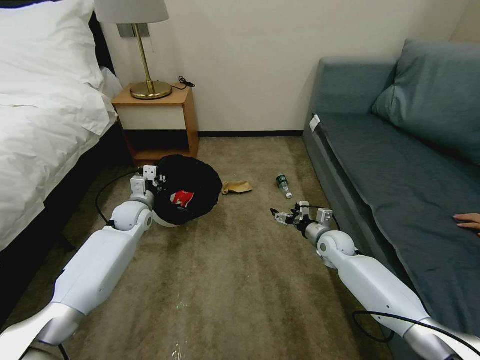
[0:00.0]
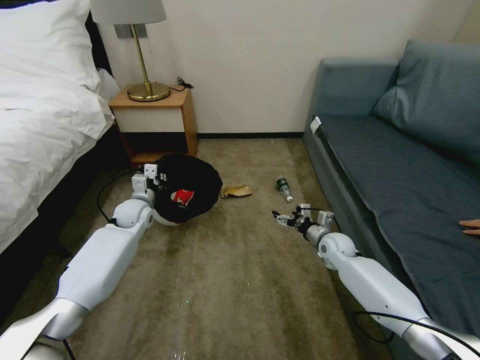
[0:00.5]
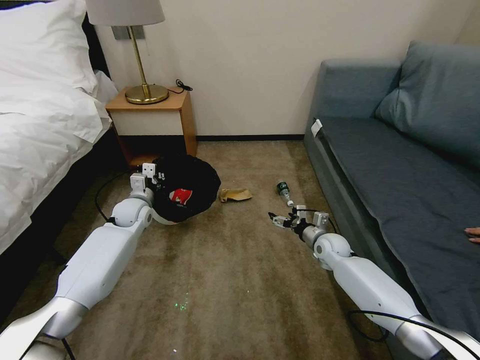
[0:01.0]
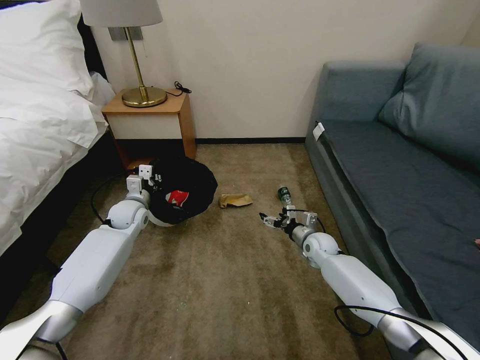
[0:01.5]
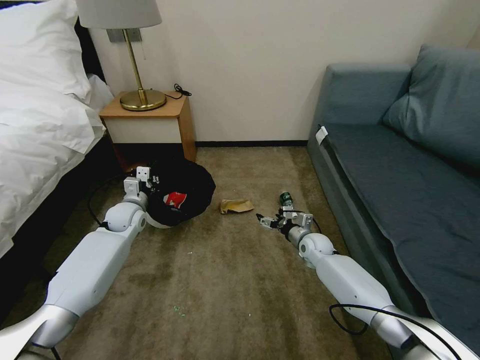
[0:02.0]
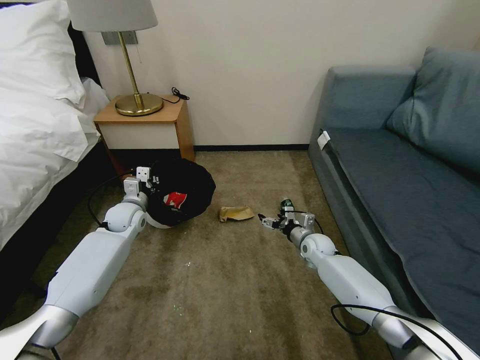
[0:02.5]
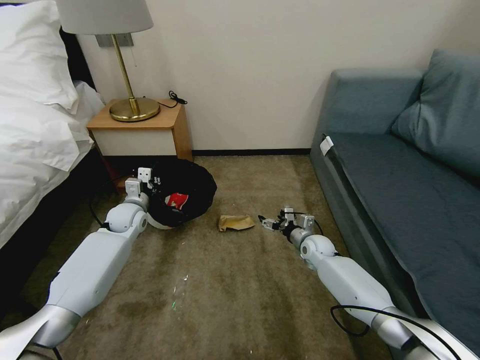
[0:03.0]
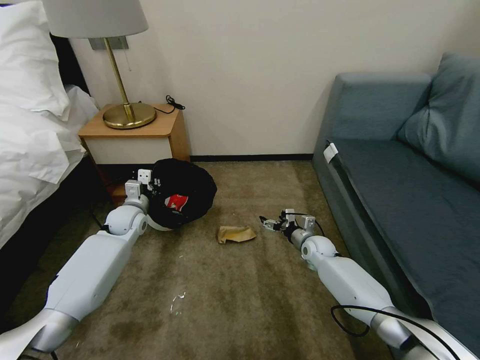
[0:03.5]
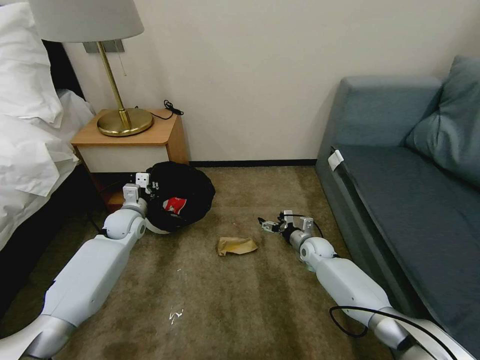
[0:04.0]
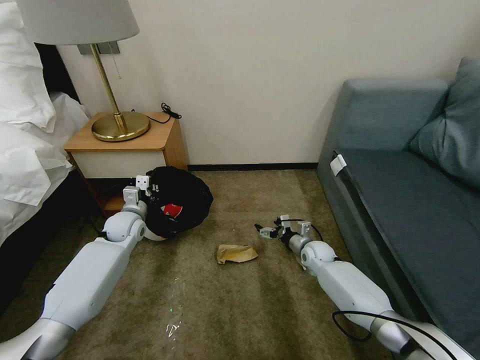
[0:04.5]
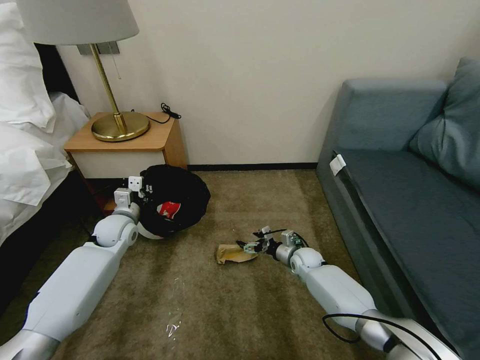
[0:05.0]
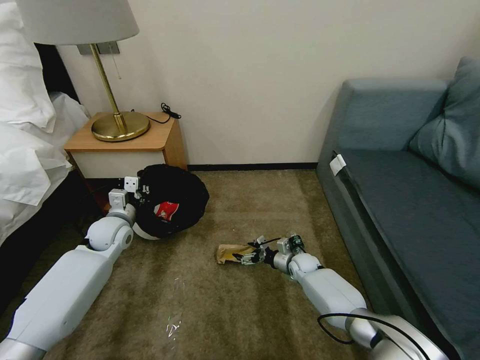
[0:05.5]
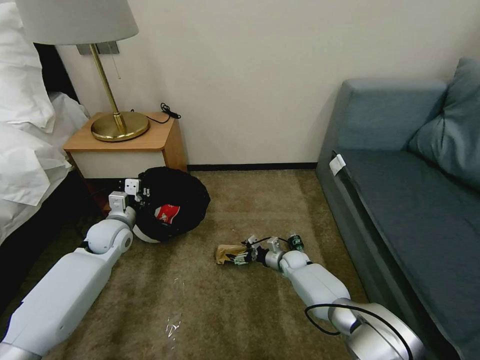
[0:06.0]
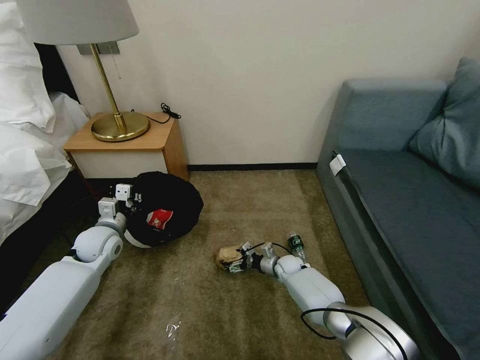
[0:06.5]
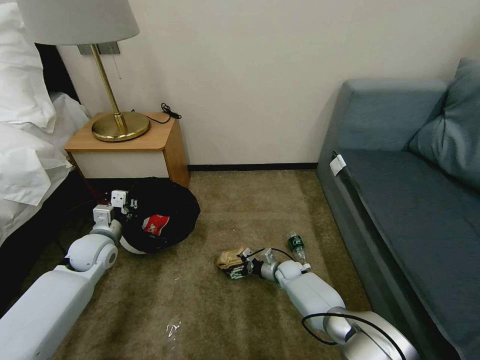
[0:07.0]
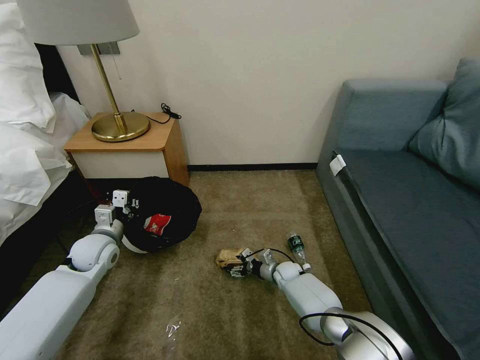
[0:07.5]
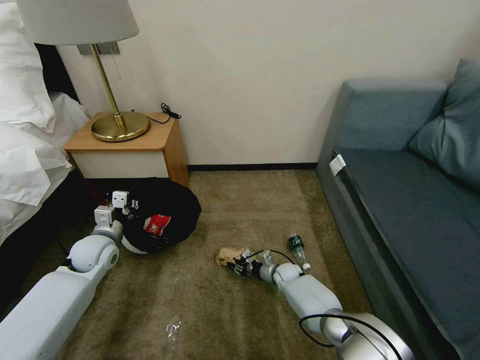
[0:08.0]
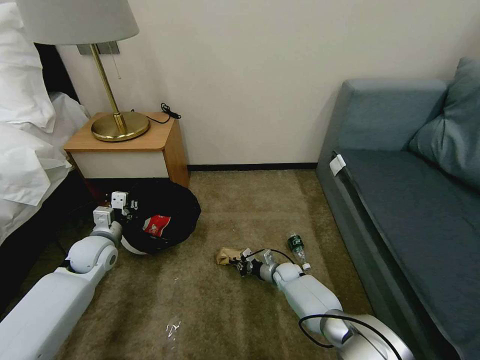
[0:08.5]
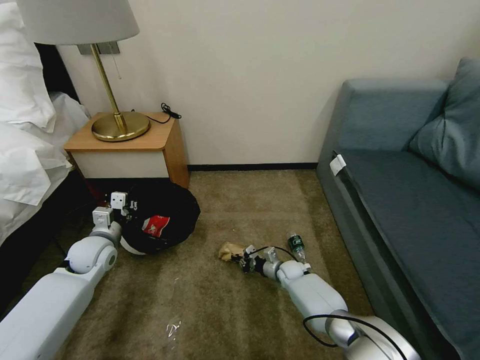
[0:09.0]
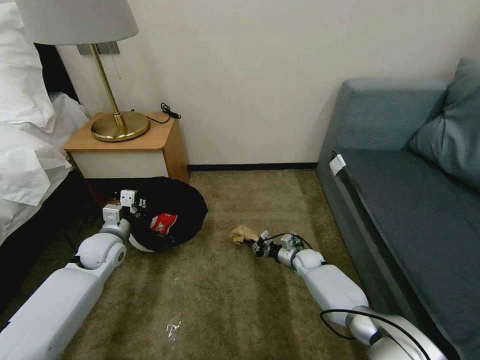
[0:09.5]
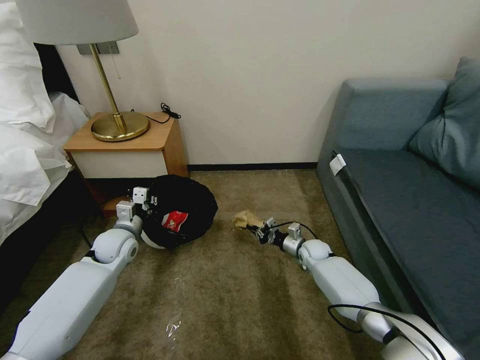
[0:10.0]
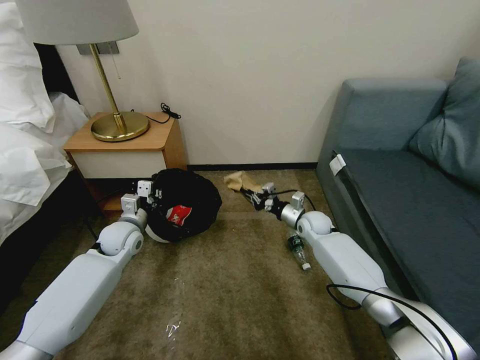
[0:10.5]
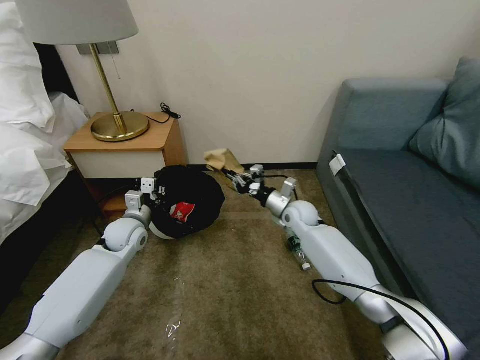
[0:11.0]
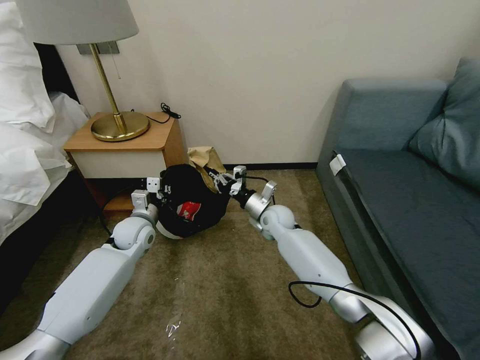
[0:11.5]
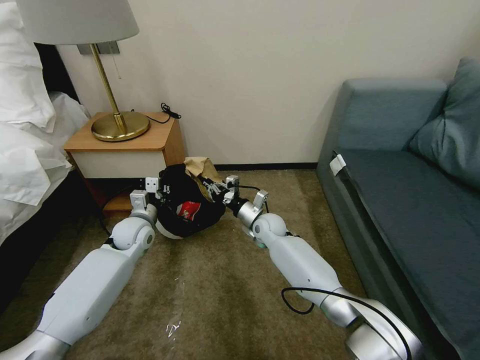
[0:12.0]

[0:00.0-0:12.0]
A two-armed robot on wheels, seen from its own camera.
Task of the whole recording: Pick up the trash bin, then pick up the garbage on the floor and place it into the trash bin.
0:00.0 to 0:02.0: The right gripper changes place by some 5 cm.
0:04.0 to 0:06.0: The right gripper travels downward and to the left by roughly 10 cm; the left gripper heads backward, covering some 5 cm.
0:06.0 to 0:08.0: The right gripper closes up.
0:08.0 to 0:10.0: The right gripper moves upward and to the right, about 10 cm.
0:10.0 to 0:12.0: The right gripper shifts roughly 20 cm to the left and upward.

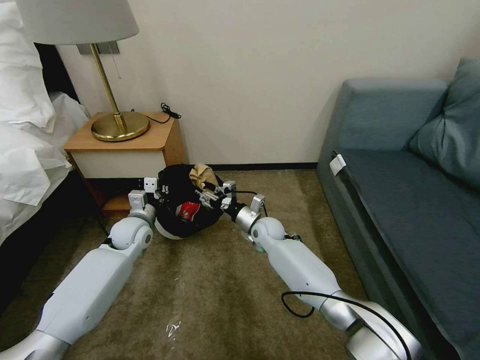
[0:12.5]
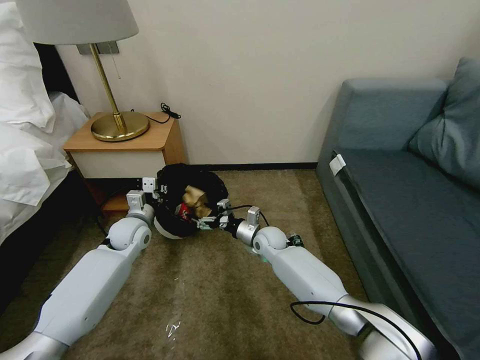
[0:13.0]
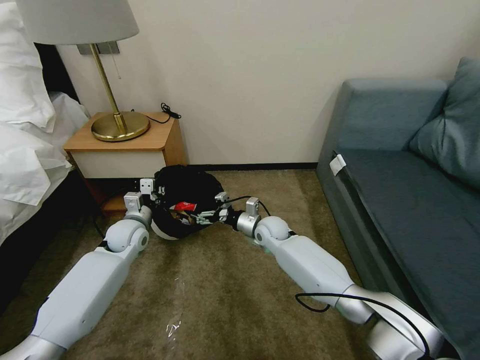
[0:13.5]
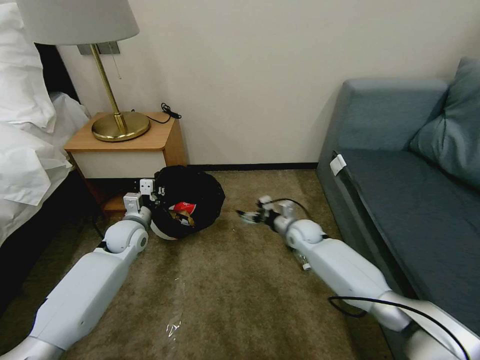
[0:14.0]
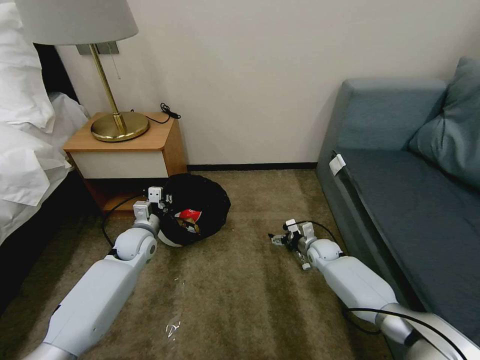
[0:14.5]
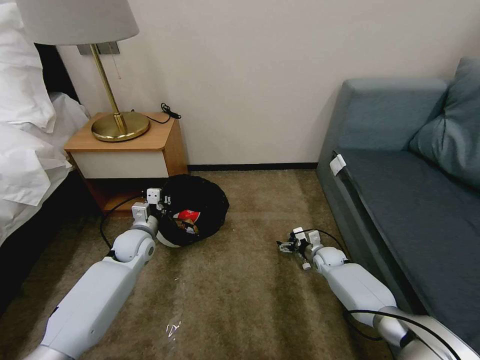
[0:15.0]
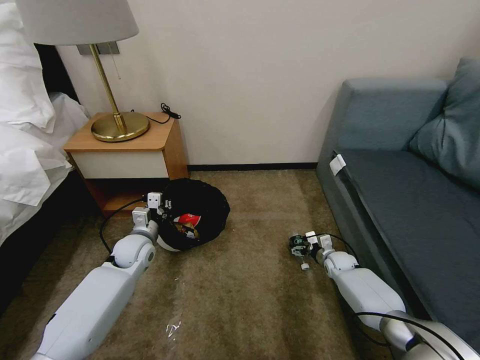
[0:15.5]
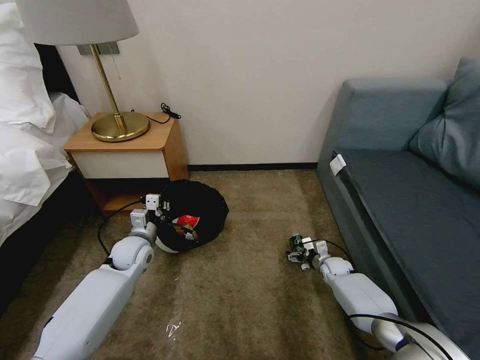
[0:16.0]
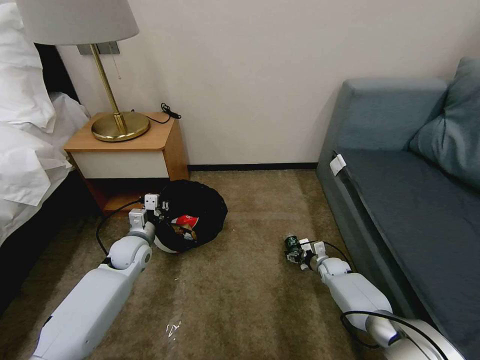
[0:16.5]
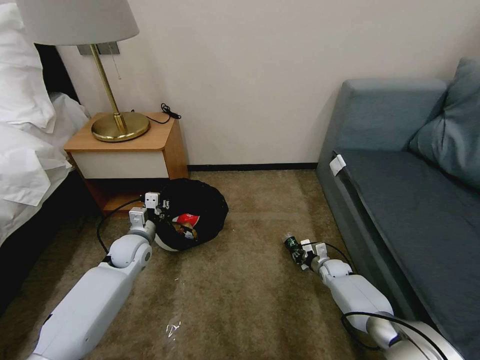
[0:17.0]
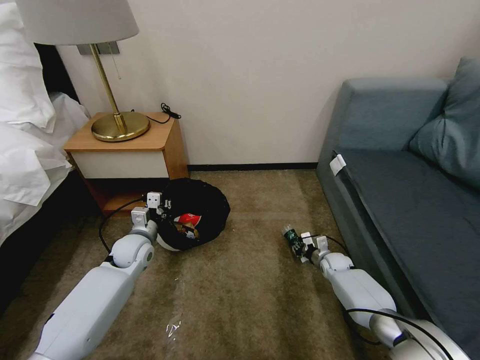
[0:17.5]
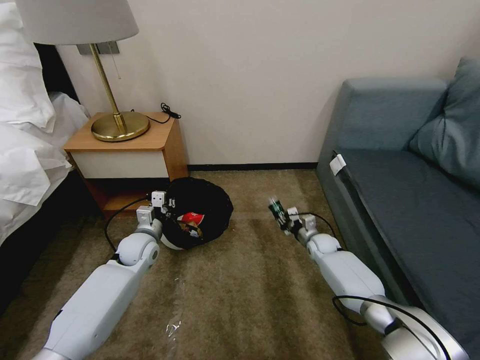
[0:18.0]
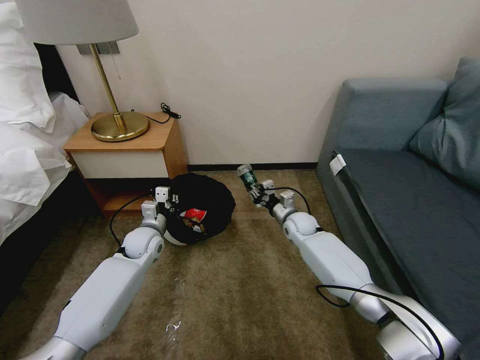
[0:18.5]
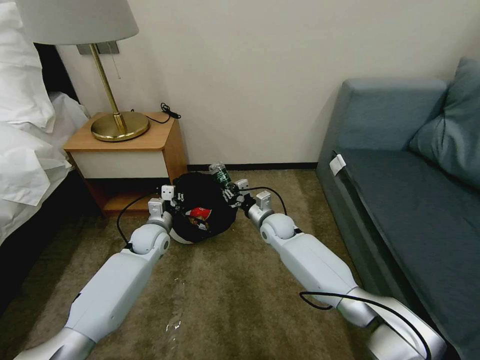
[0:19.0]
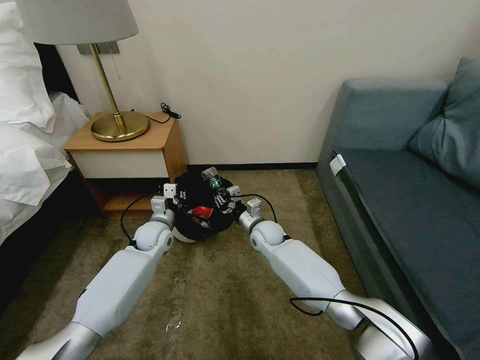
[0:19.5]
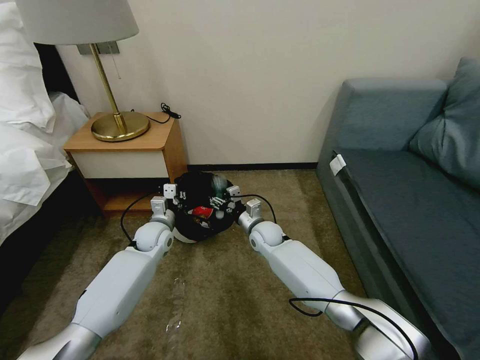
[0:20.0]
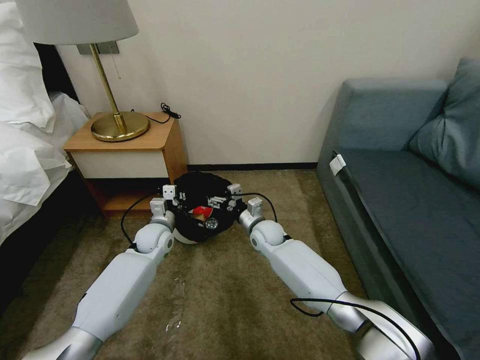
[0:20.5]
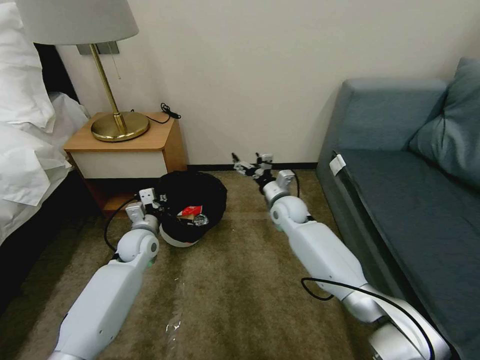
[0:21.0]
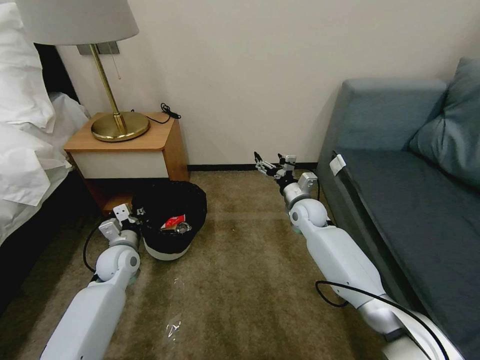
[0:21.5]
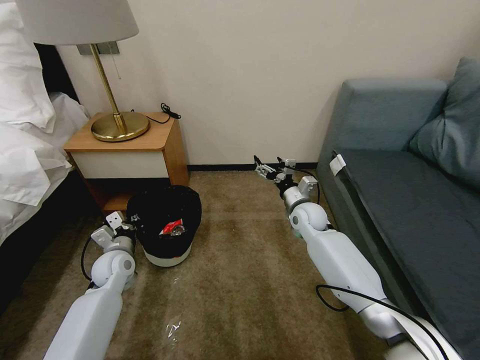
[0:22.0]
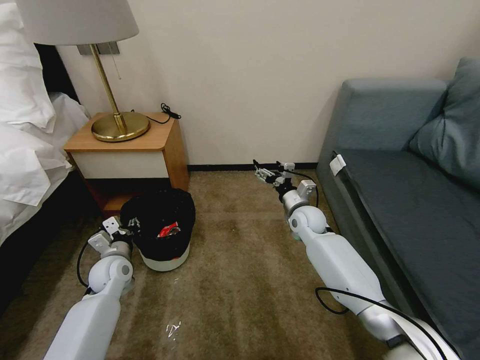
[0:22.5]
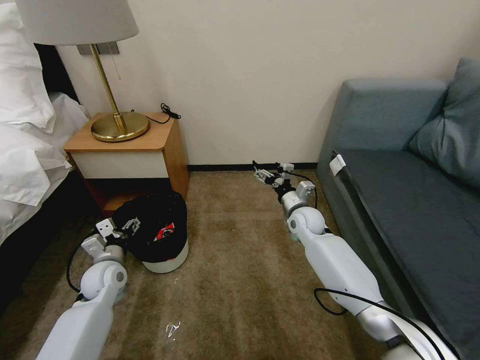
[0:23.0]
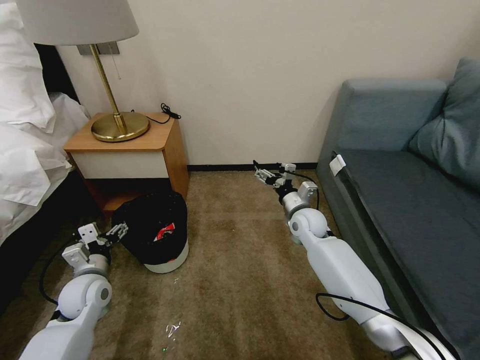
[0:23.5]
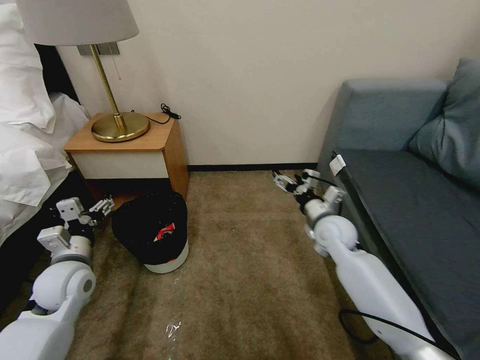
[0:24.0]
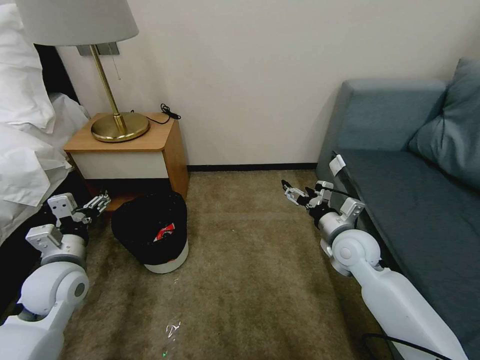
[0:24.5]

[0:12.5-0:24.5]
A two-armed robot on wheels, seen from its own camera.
Task of the whole recording: Pick up the trash bin, then pick up the garbage on the floor and place it into the trash bin.
0:12.5 to 0:14.5: The right gripper is displaced to the right and downward by some 20 cm, and opens its fingers.
0:14.5 to 0:16.5: The right gripper travels downward by some 5 cm.
0:16.5 to 0:18.5: The right gripper moves upward, to the left and forward, some 20 cm, and closes.
0:18.5 to 0:20.5: The right gripper shifts roughly 10 cm to the left, and opens up.
0:20.5 to 0:22.5: The left gripper goes approximately 15 cm to the left and backward. Meanwhile the right gripper travels to the right and upward by approximately 10 cm.
0:22.5 to 0:24.5: The right gripper is displaced backward, to the right and upward by some 15 cm. Meanwhile the left gripper goes approximately 15 cm upward and backward, and opens its fingers.

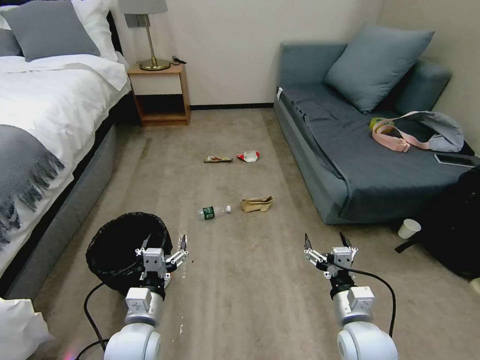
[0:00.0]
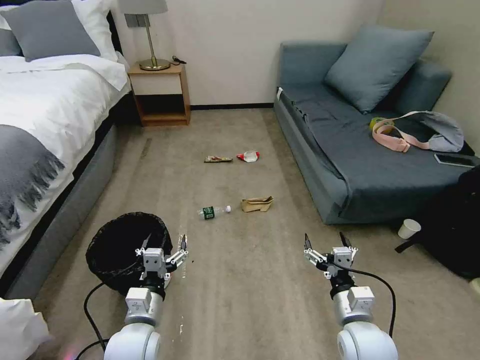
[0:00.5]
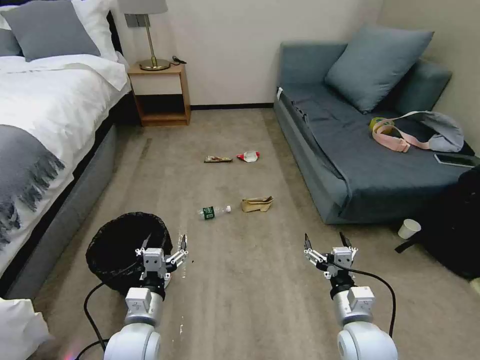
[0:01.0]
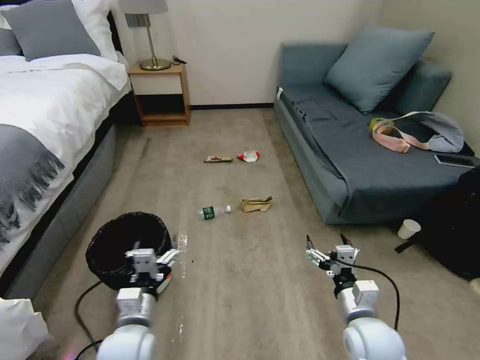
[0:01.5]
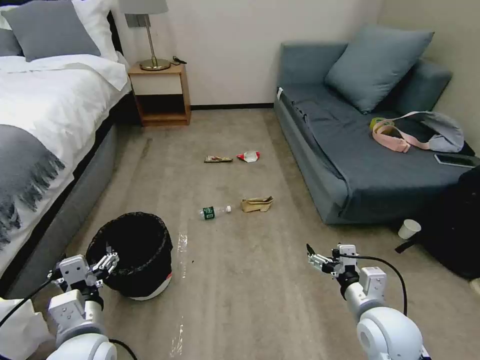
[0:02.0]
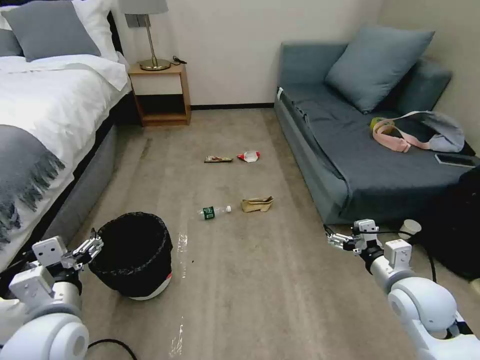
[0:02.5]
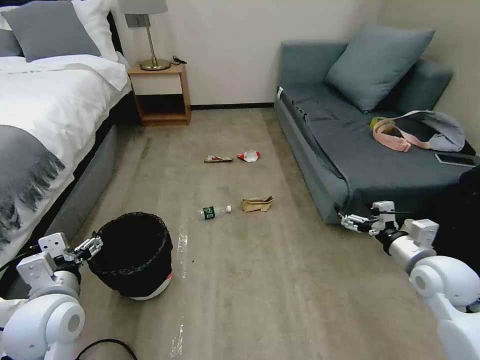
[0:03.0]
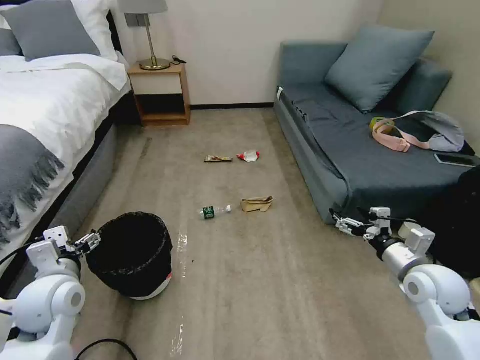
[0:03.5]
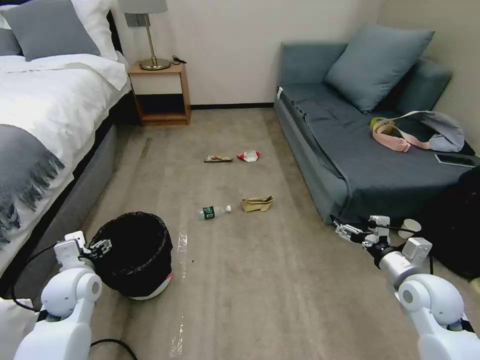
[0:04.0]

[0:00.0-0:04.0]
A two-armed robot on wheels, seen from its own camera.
Task of the whole recording: Pick up the trash bin, then pick up the garbage on the floor and place it into the trash bin.
0:02.0 to 0:04.0: The left gripper shifts some 15 cm forward and to the left. Meanwhile the right gripper goes about 15 cm to the right and forward.
